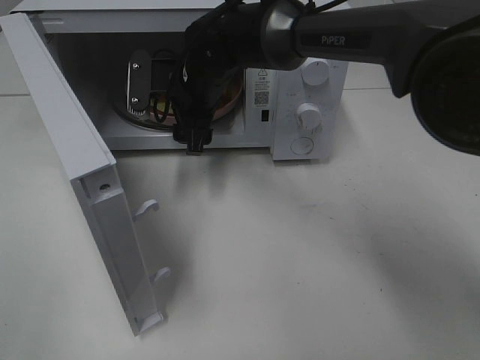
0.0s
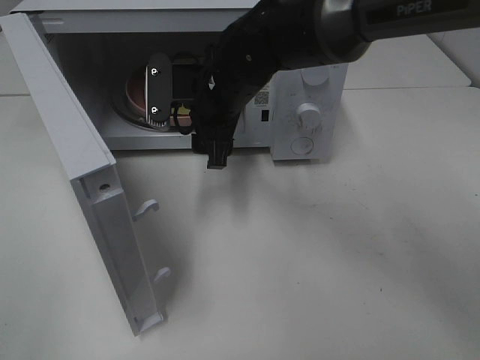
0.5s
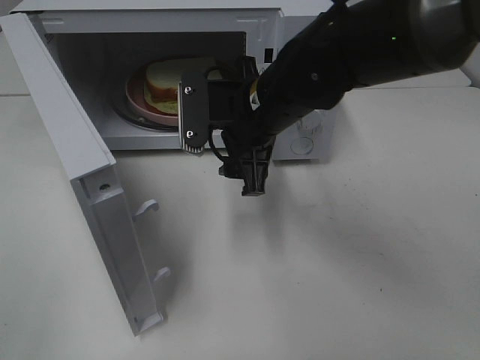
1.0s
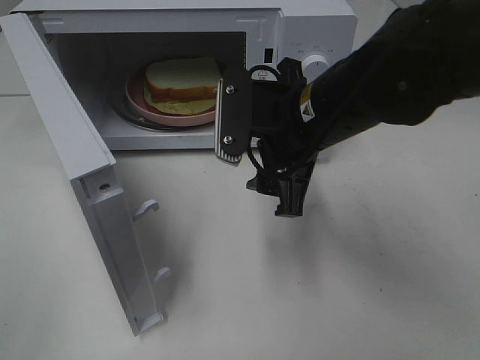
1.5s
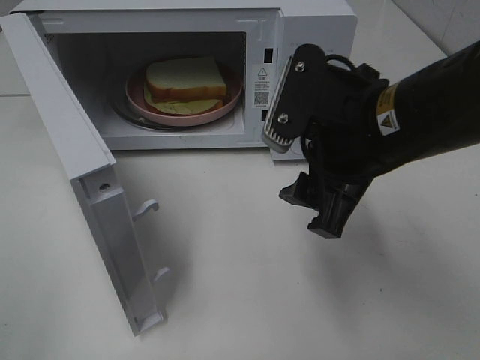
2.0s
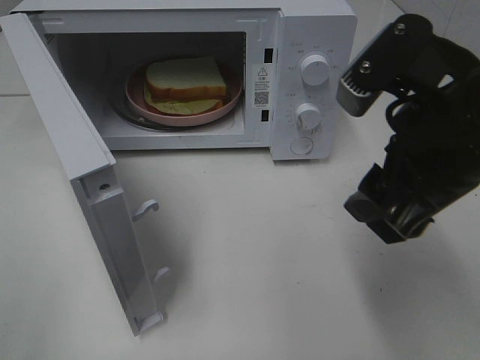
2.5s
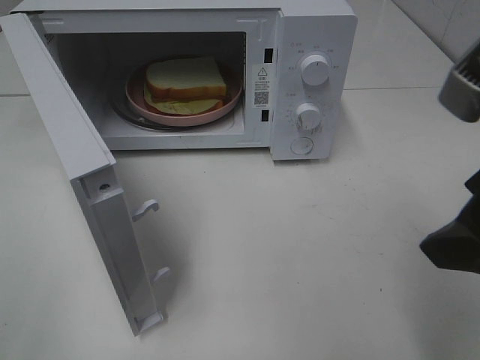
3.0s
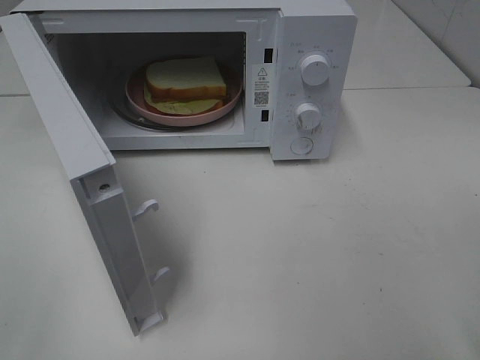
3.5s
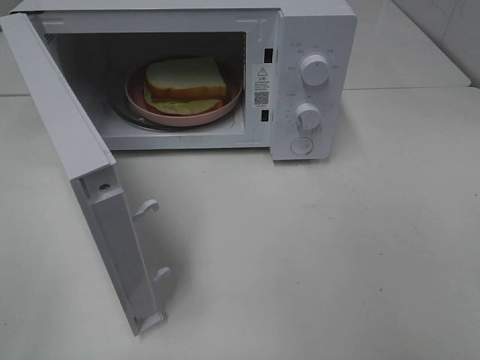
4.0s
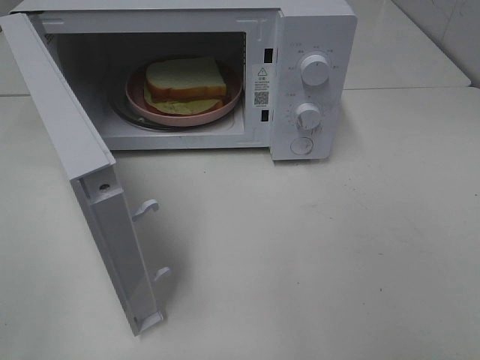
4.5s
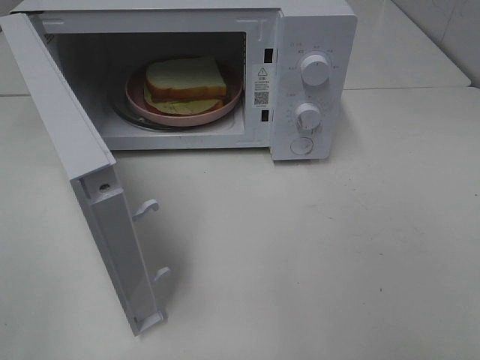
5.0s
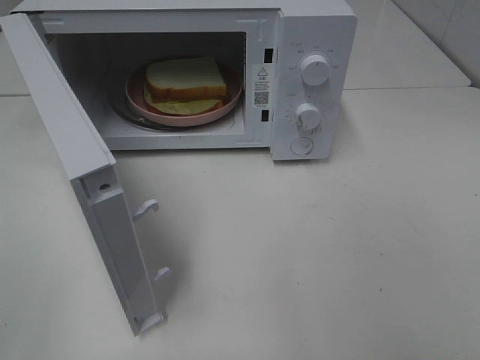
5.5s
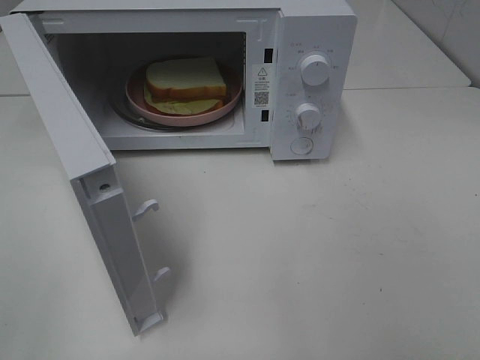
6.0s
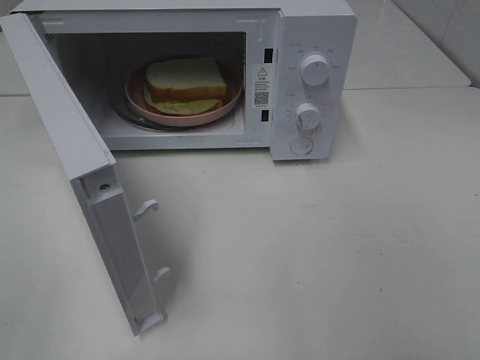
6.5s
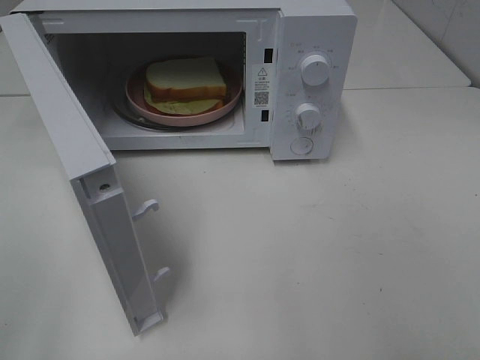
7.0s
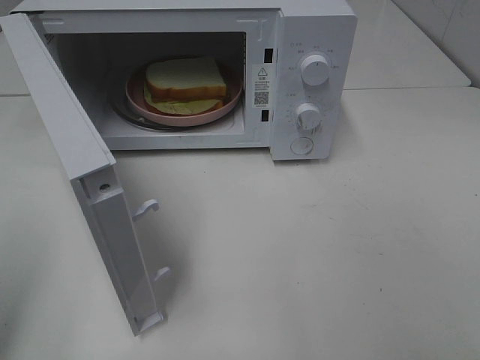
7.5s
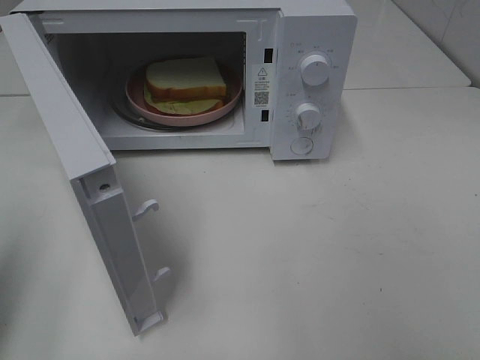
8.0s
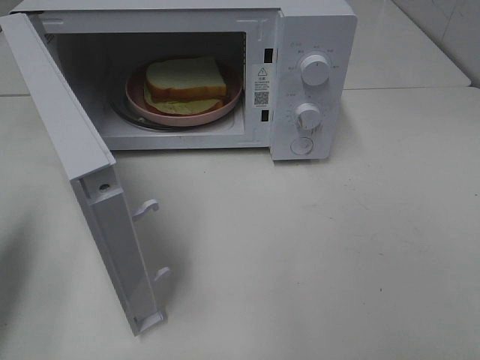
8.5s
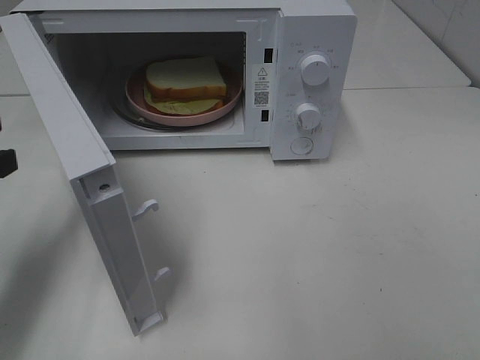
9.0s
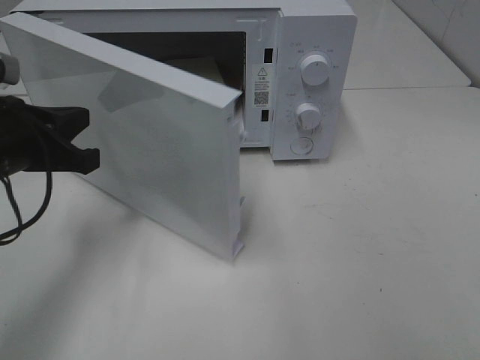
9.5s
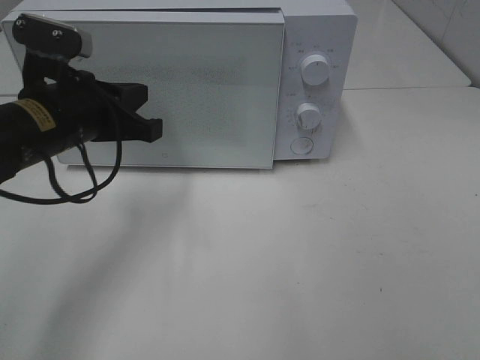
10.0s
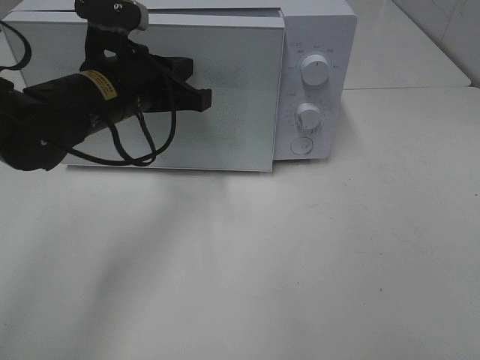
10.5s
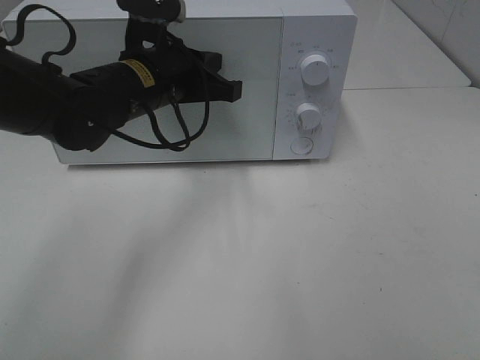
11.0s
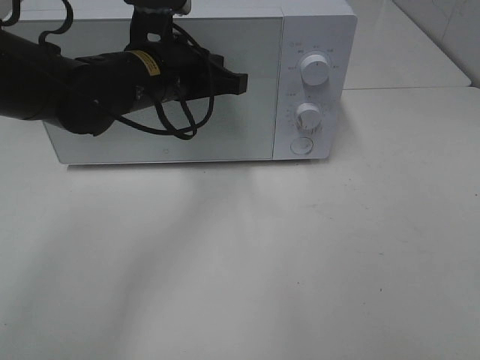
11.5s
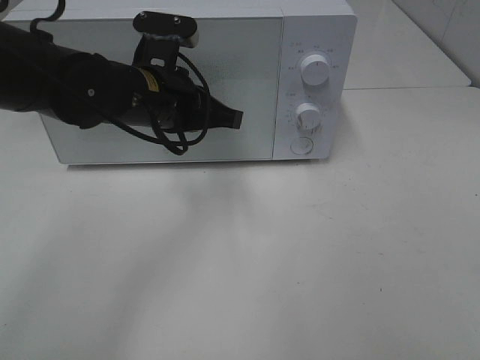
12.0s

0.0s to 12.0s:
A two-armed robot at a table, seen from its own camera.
Task of the whole recording: Heat Sandwich.
0.0s to 2.0s: The right gripper shifts about 25 cm backward and to the right.
2.0s to 4.0s: The right gripper travels backward and to the right by about 25 cm.
6.0s to 8.0s: The left gripper moves forward, about 15 cm, and closes up.
8.0s to 10.0s: The left gripper moves forward, to the right and downward, roughly 25 cm.
10.0s to 12.0s: The left gripper goes some 10 cm to the right.

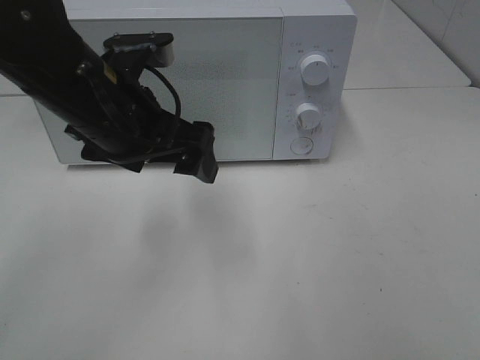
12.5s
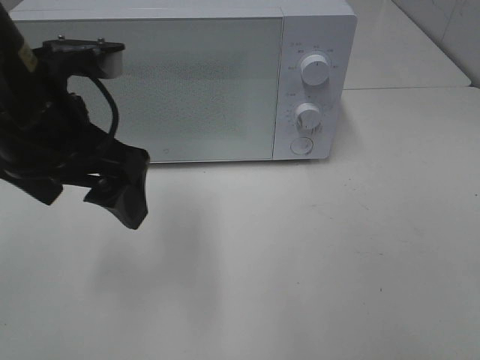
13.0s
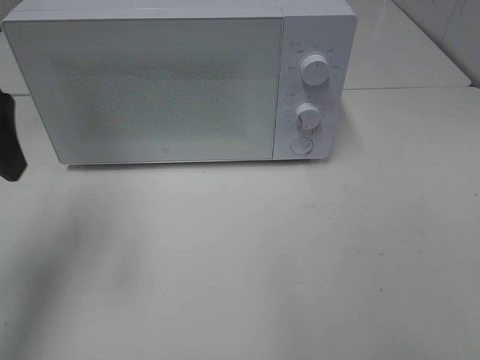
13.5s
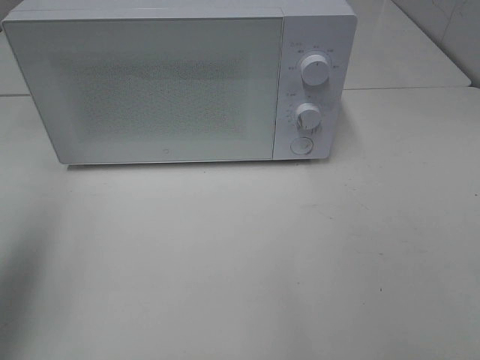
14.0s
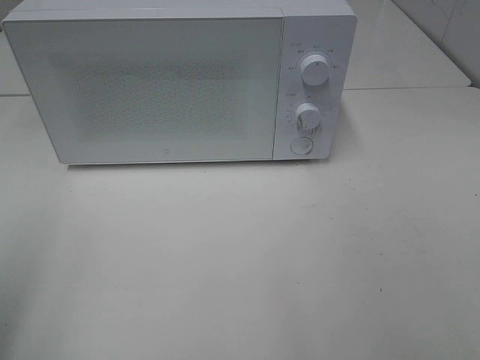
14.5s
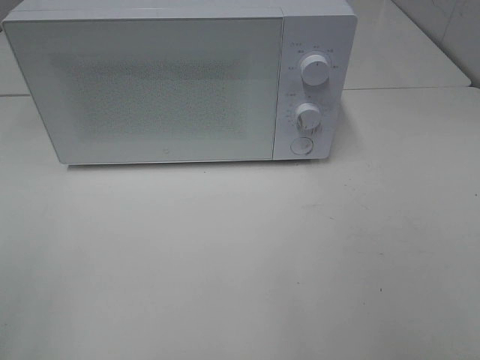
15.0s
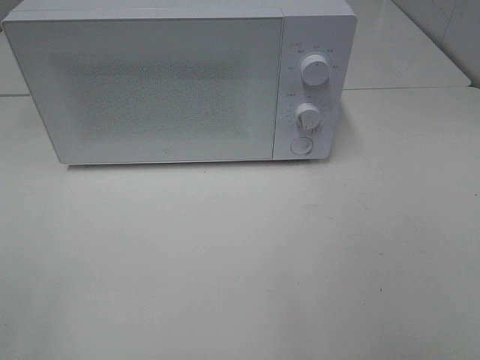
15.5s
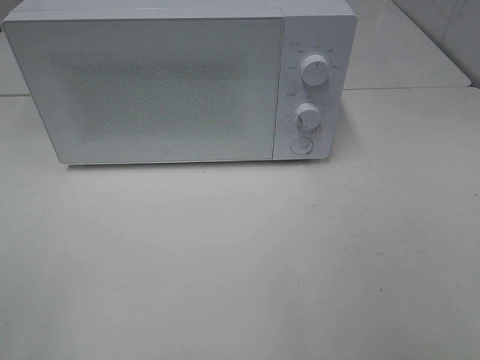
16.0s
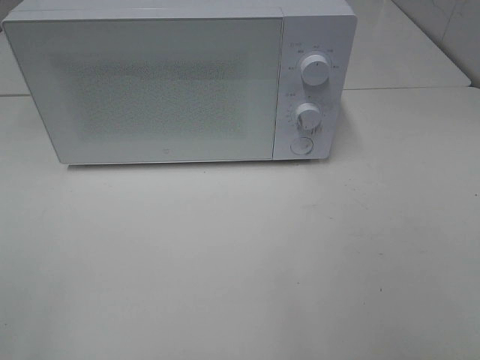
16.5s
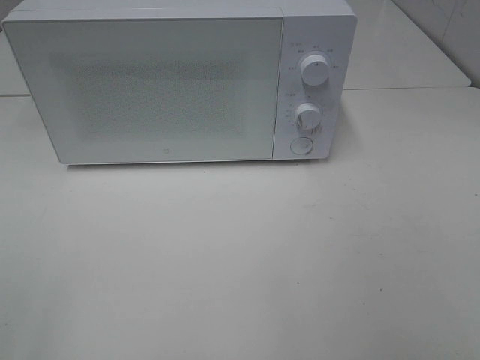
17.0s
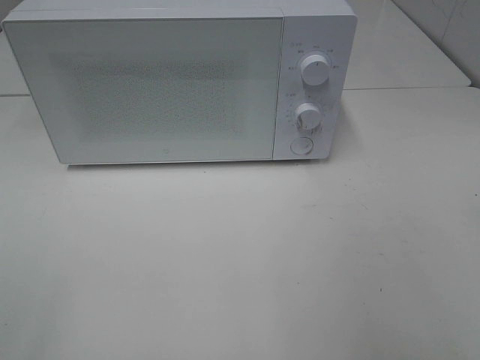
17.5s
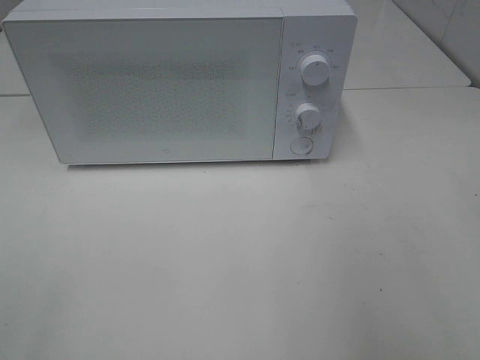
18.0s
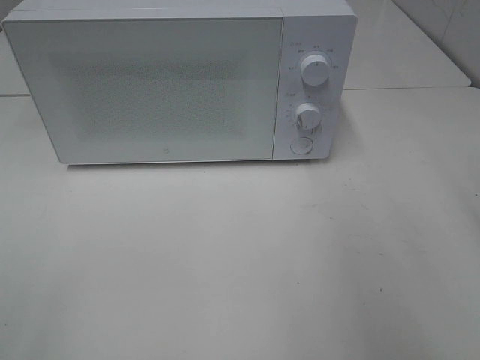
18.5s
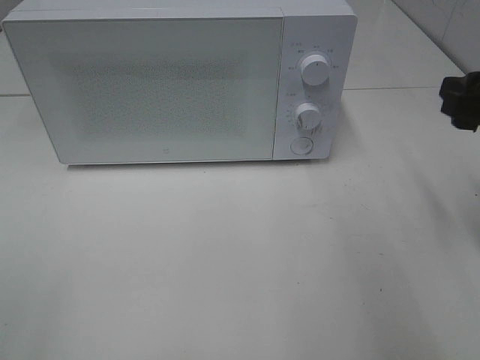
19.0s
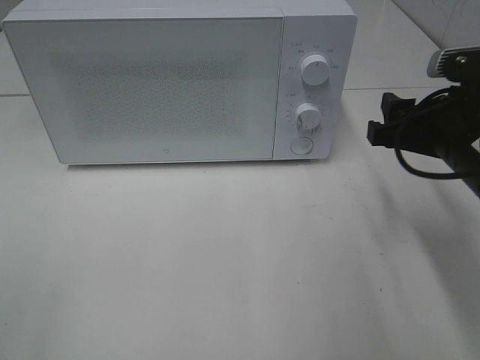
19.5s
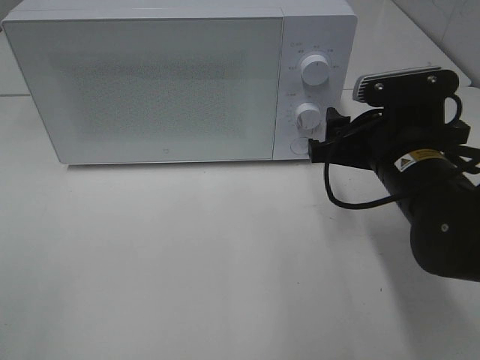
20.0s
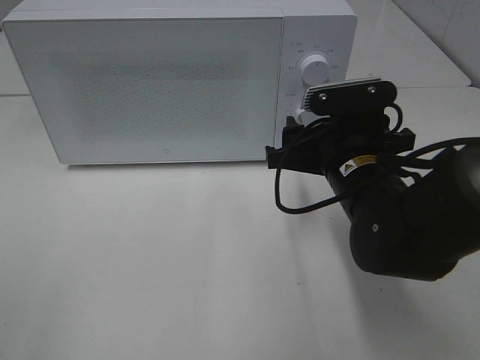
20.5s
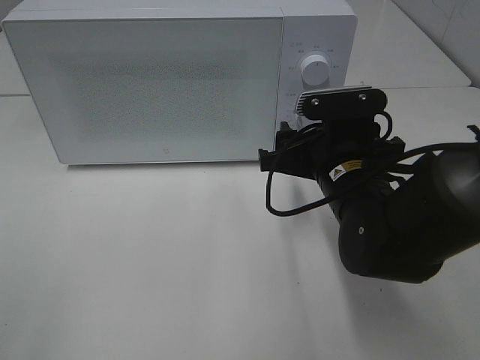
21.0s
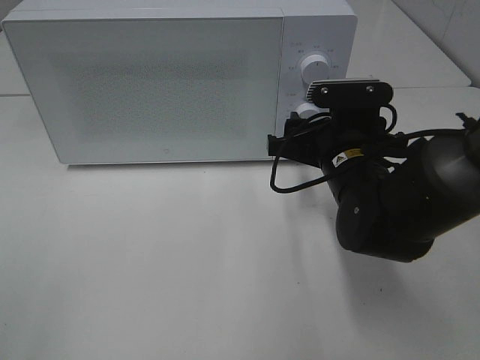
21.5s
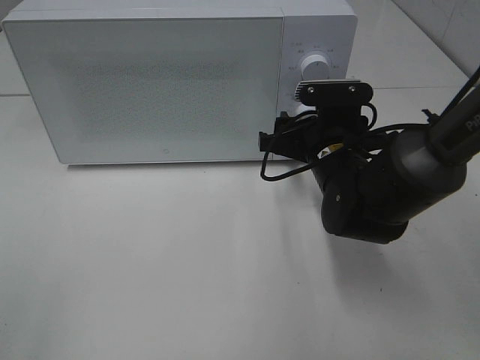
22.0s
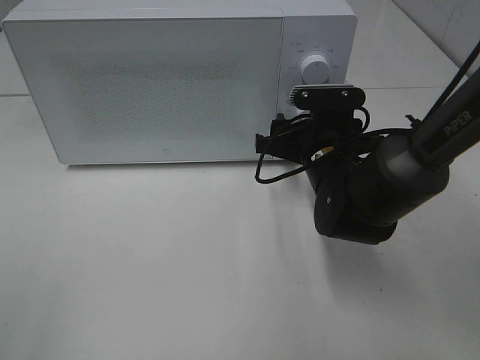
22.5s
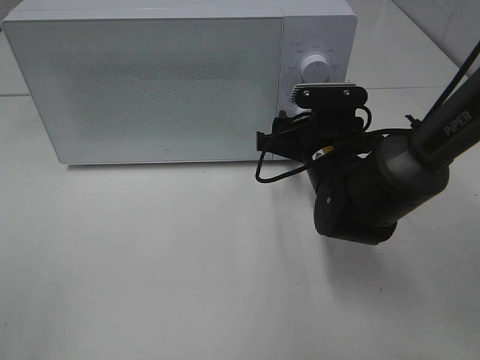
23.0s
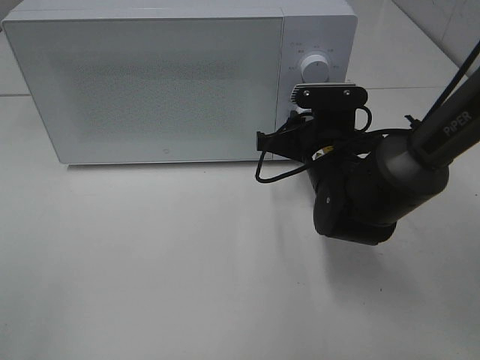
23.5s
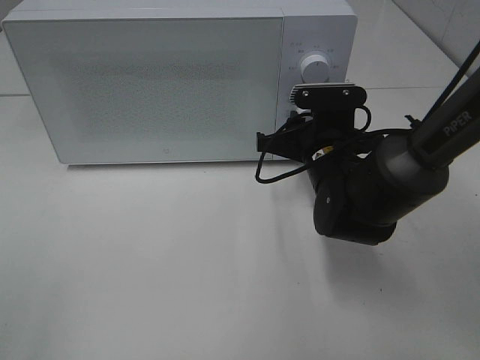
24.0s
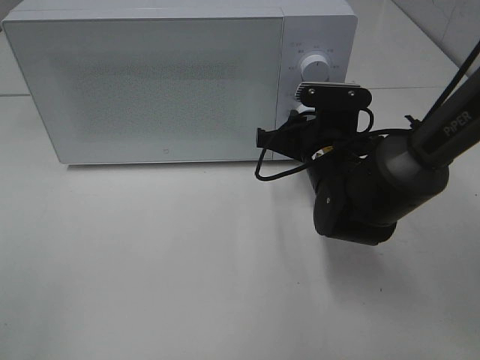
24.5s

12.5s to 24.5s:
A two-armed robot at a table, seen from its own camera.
Task of the whole recording: Heat Sandwich.
12.5s to 14.5s: The left gripper shifts about 30 cm to the left and backward.
18.5s to 20.5s: The right gripper travels to the left, downward and forward by approximately 25 cm.
20.5s to 22.5s: The right gripper heads forward, covering roughly 5 cm.
22.5s to 24.5s: The right gripper closes up.

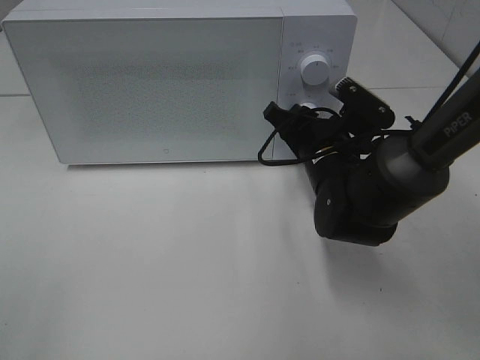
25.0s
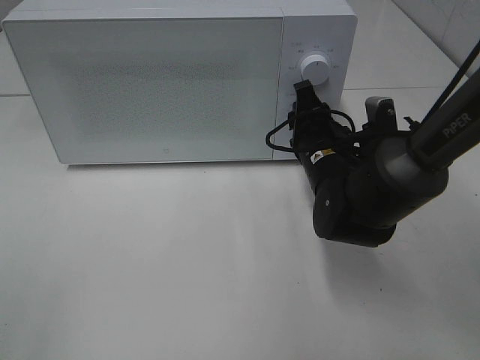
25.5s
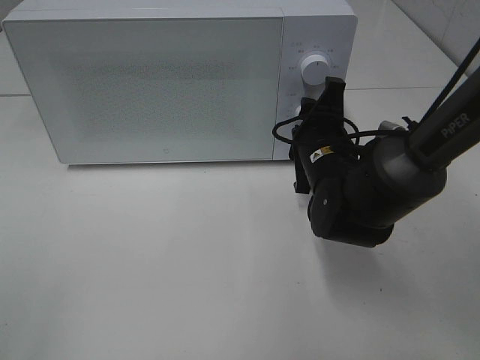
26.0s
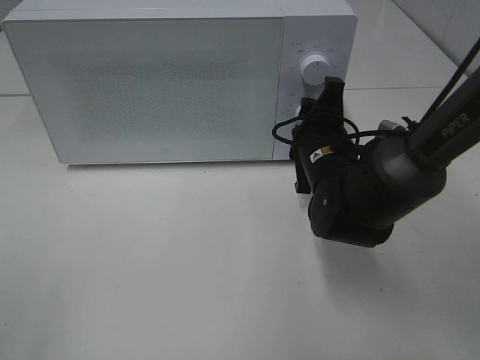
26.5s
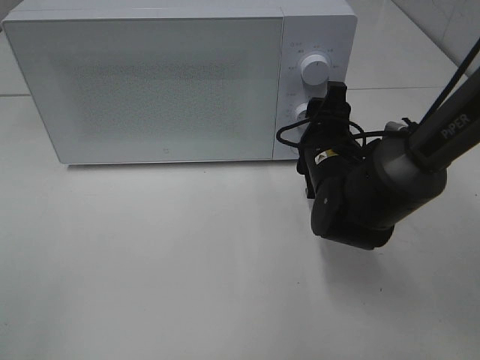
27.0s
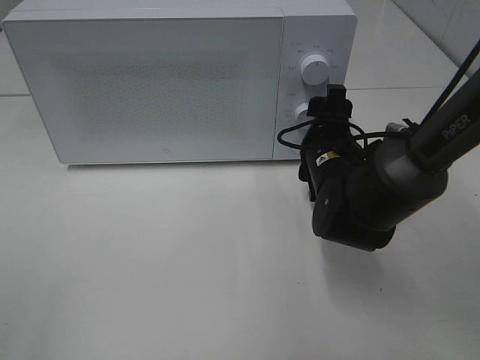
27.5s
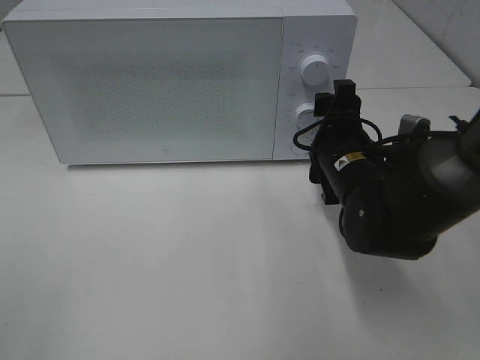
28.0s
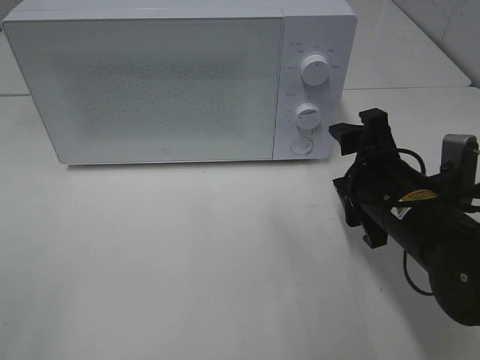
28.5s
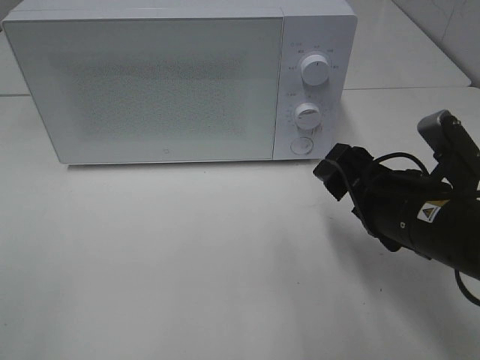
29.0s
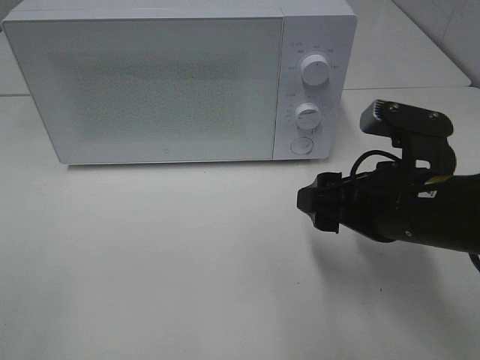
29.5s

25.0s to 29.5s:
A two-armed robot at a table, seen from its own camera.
Task of the whole recording: Heat Sandwich.
Step, 25.0s to 28.0s: Right hand: twist timer button.
27.0s to 29.5s: The right gripper is displaced backward and upward by approximately 15 cm.
